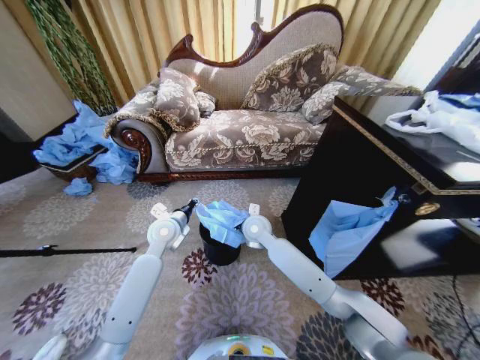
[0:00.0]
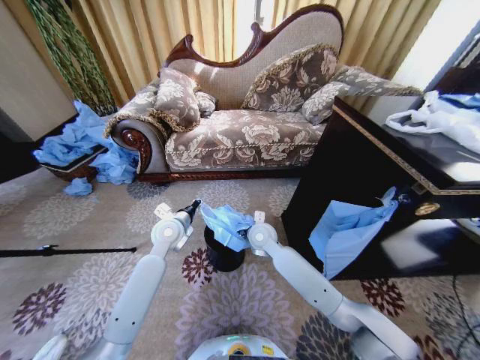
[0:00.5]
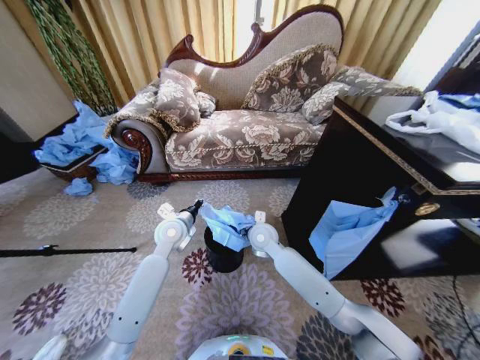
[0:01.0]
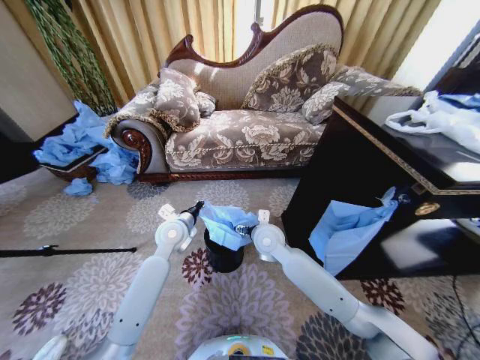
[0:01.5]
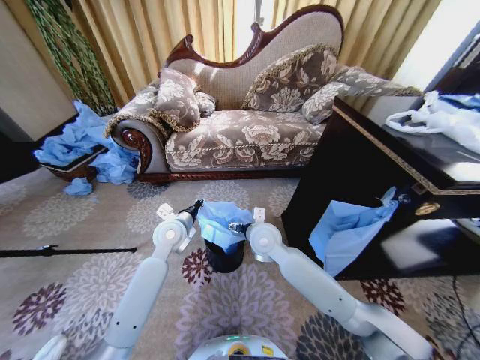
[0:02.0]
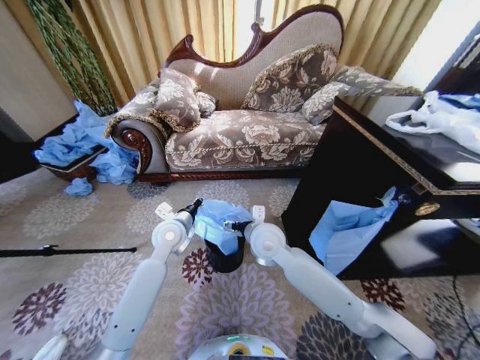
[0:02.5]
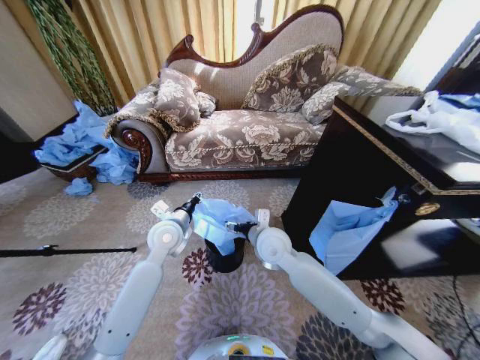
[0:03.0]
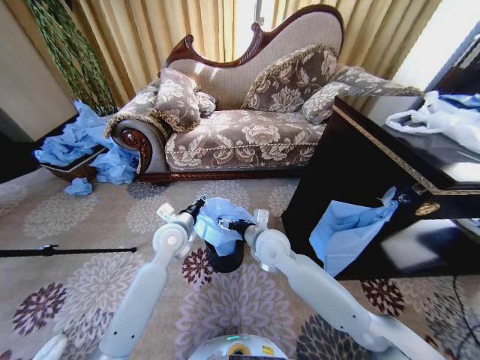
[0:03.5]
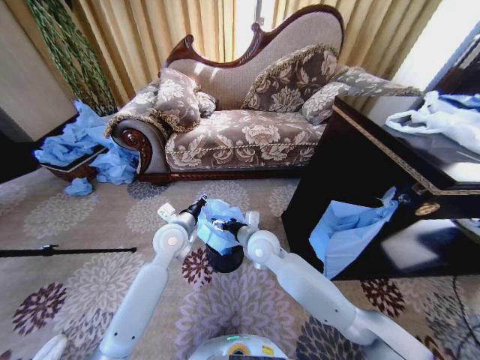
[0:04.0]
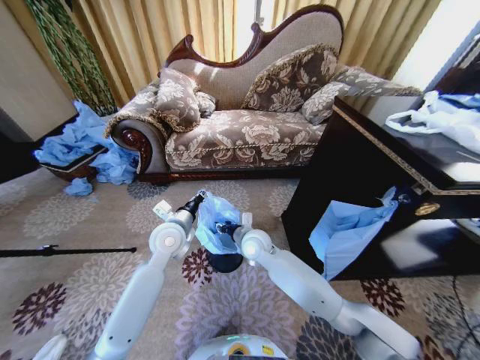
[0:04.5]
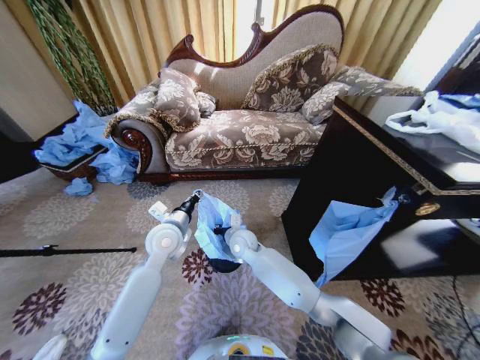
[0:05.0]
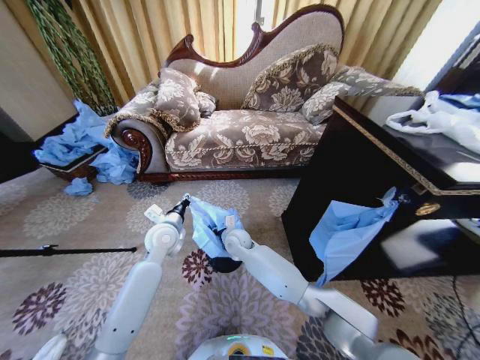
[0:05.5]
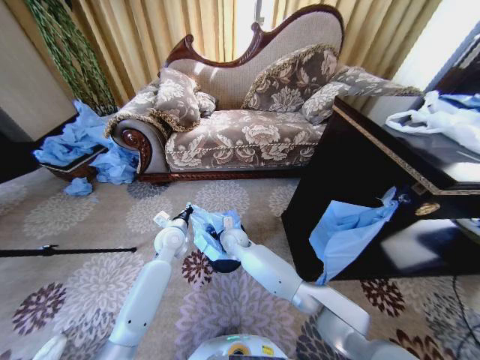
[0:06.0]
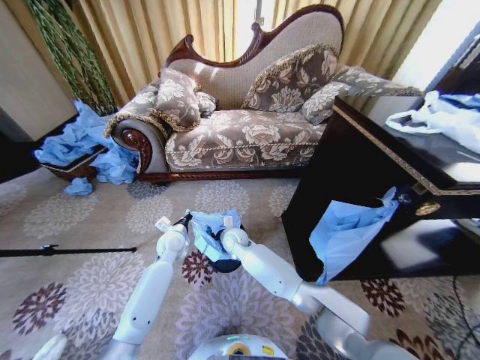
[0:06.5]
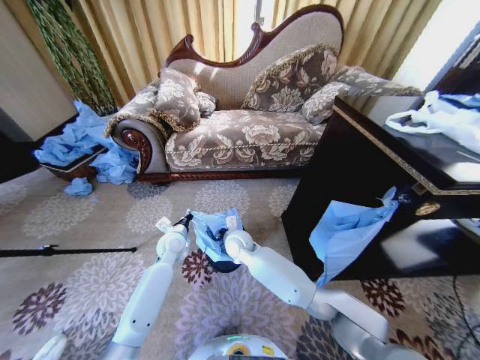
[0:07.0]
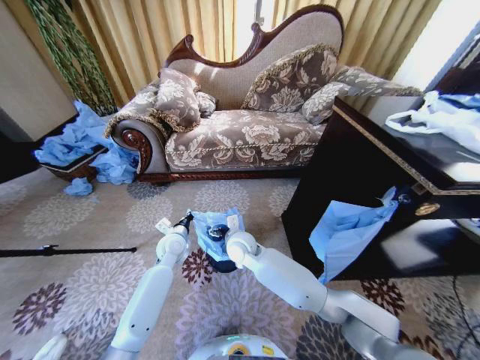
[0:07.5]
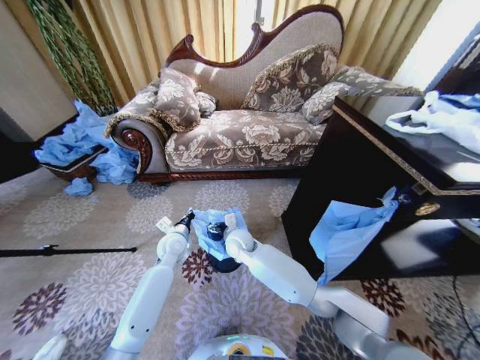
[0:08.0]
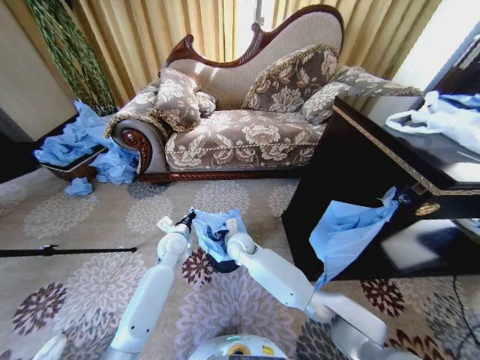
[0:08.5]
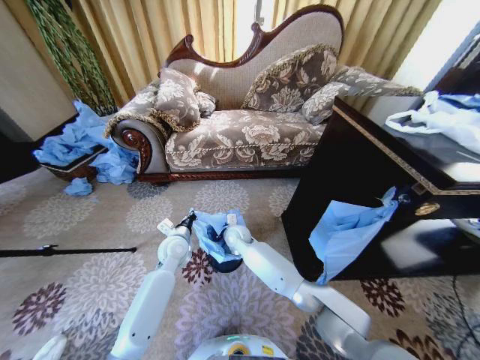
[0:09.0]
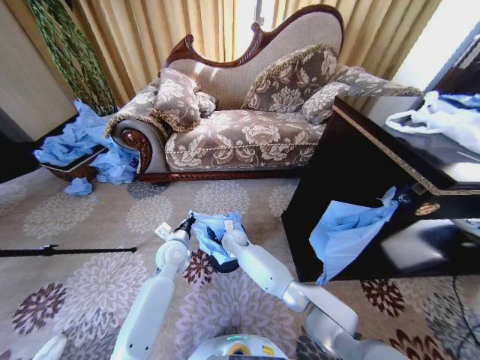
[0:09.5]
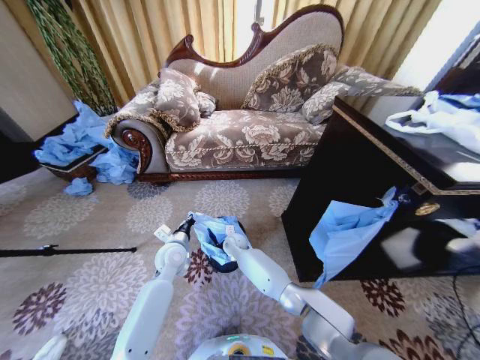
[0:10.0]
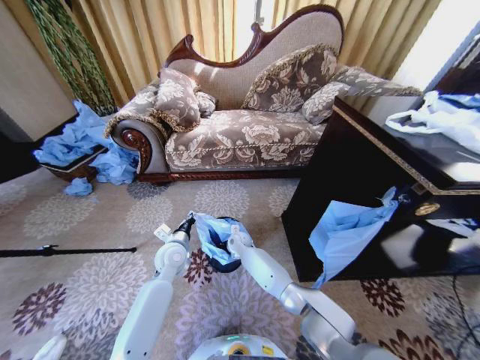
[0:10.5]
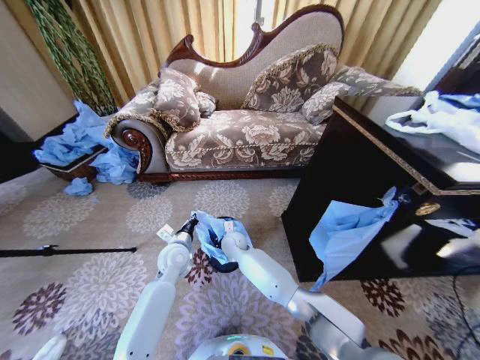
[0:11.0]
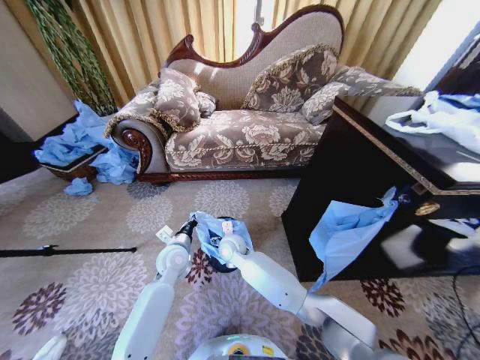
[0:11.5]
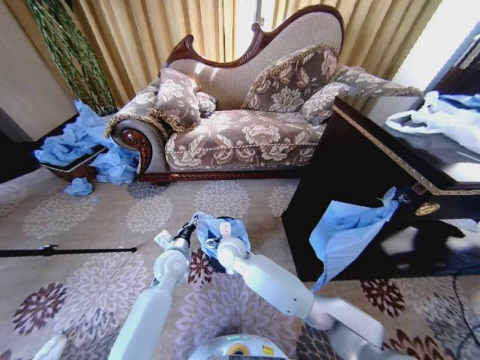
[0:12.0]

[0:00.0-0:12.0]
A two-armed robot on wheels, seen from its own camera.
Task of the whole recording: Place a garbage bag over the trash bin.
0:00.0 to 0:02.0: The right gripper travels backward by some 5 cm, and opens.
0:04.0 to 0:06.0: The left gripper heads downward, covering roughly 5 cm, while the right gripper is displaced downward, to the left and forward by roughly 15 cm, and closes.
0:06.0 to 0:08.0: The right gripper opens up.
0:08.0 to 0:10.0: The right gripper is displaced downward and forward by roughly 10 cm, and closes up.
0:10.0 to 0:12.0: The left gripper opens; the right gripper is displaced upward and backward by approximately 15 cm, and opens up.

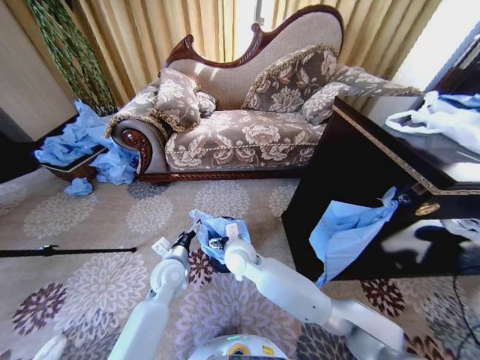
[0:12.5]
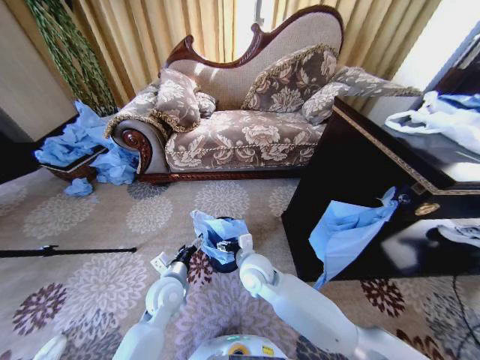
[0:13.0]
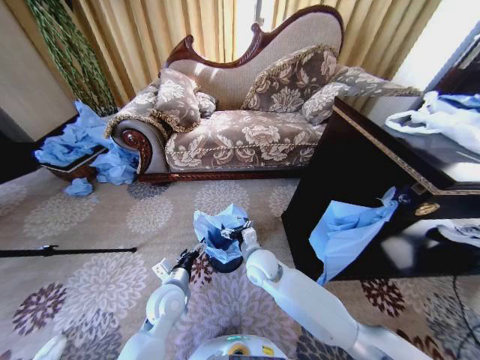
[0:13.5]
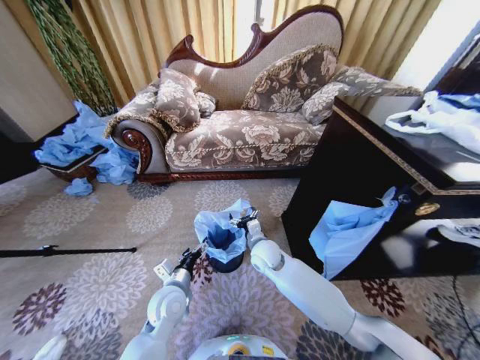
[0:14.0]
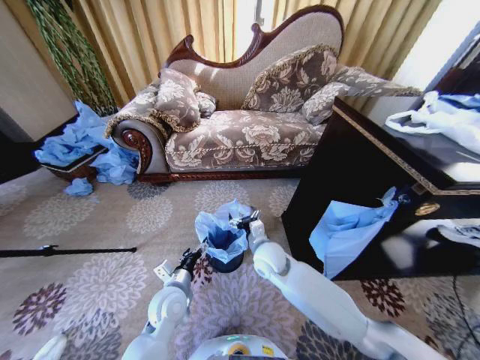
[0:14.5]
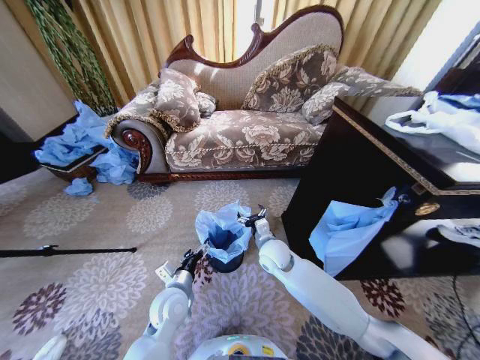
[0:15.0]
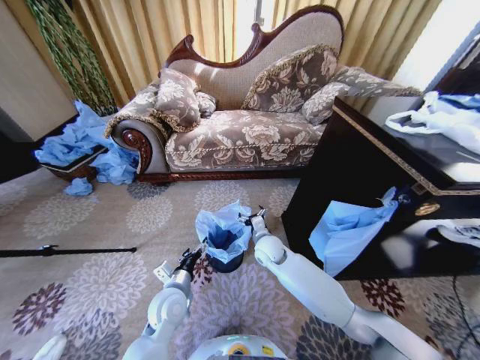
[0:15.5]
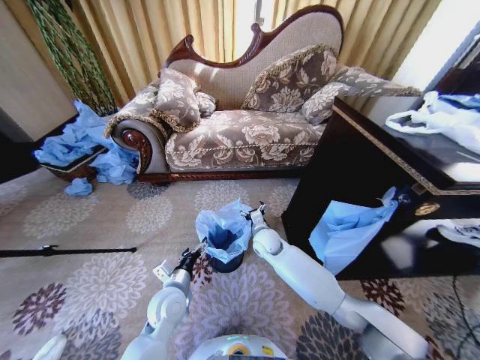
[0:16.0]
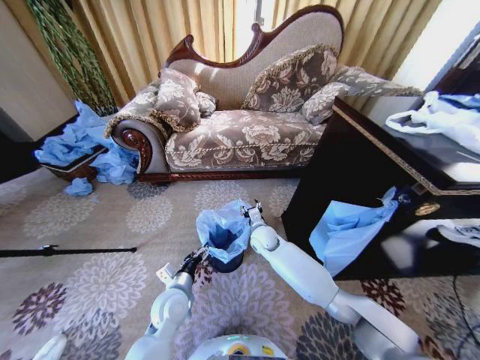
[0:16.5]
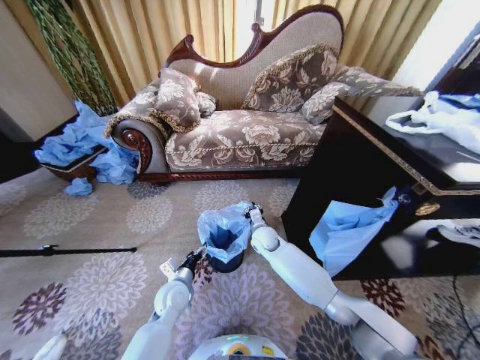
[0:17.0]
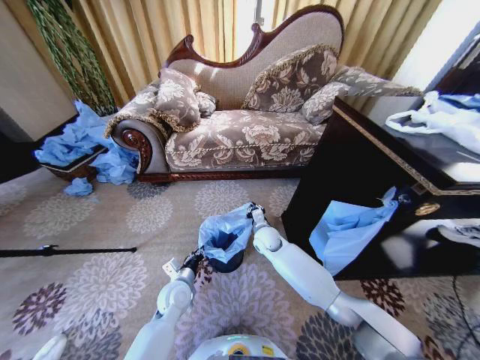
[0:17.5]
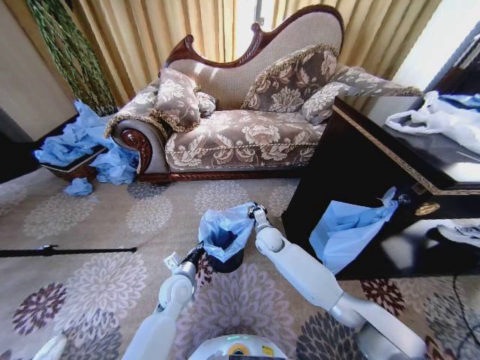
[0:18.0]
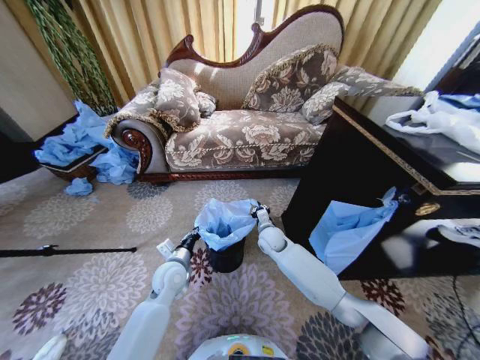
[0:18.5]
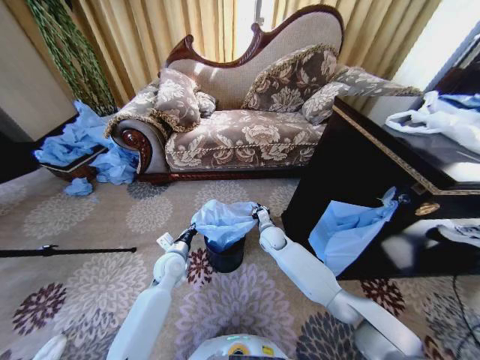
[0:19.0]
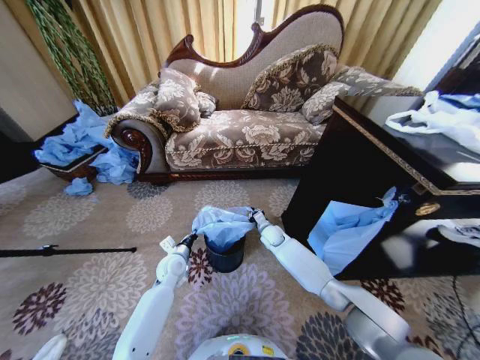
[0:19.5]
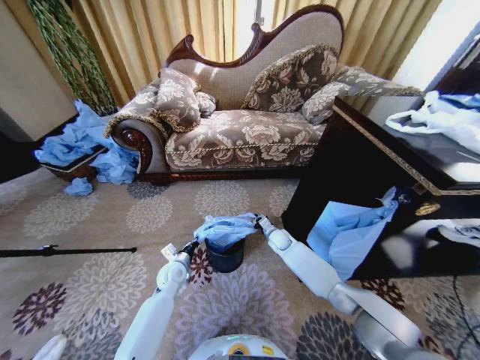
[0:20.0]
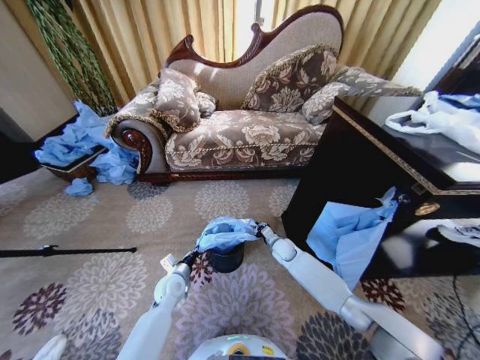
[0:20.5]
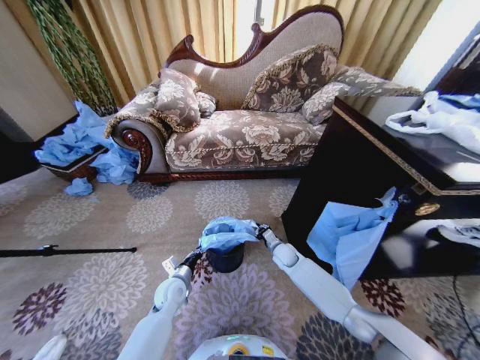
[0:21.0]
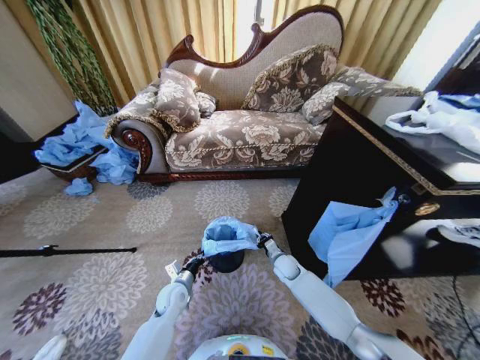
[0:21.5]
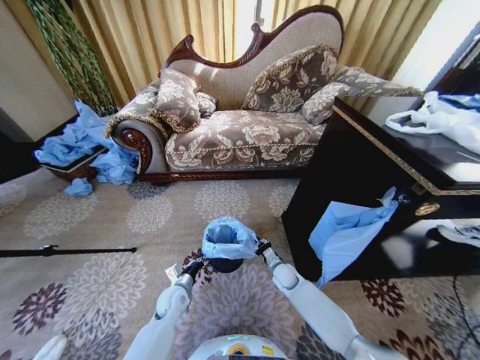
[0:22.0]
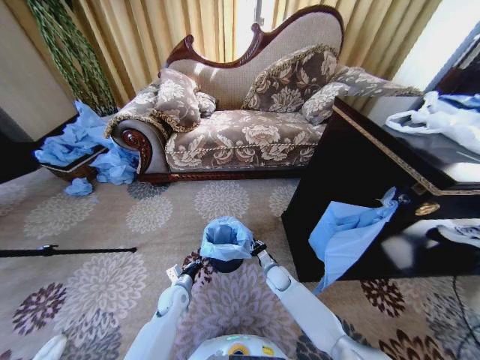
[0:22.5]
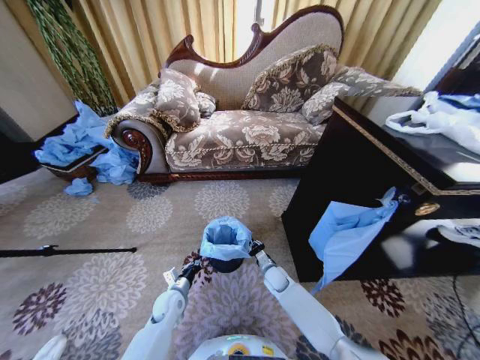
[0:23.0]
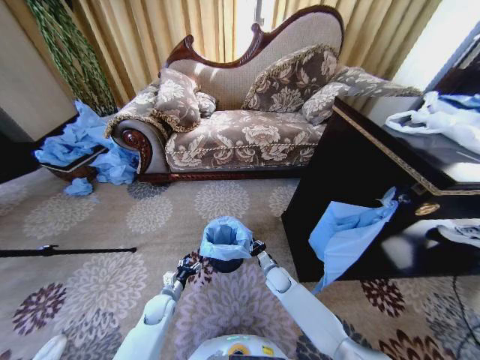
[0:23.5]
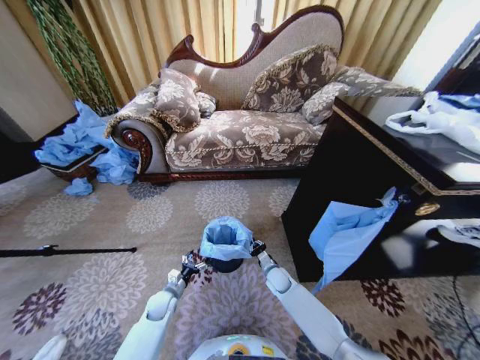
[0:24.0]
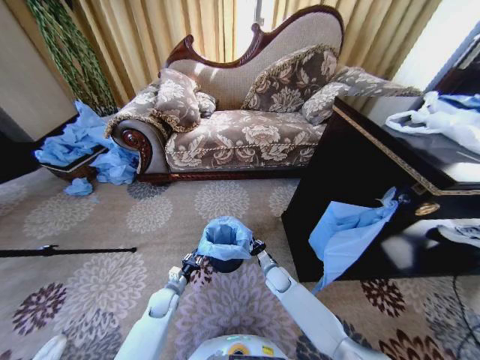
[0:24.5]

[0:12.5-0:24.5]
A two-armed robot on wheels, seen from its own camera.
Task of the whole recording: Place a garbage bag over the trash bin.
0:12.5 to 0:14.5: The left gripper is displaced backward by roughly 5 cm. The right gripper goes about 10 cm to the right.
0:14.5 to 0:16.5: The right gripper moves forward, roughly 10 cm, and closes up.
0:16.5 to 0:18.5: The right gripper closes up, while the left gripper moves forward, roughly 5 cm, and closes.
0:18.5 to 0:20.5: The left gripper shifts some 10 cm downward. Meanwhile the right gripper shifts roughly 10 cm downward and to the right.
0:20.5 to 0:22.5: The left gripper moves downward, about 5 cm; the right gripper is displaced backward and downward by roughly 10 cm.
0:22.5 to 0:24.5: The left gripper opens up.

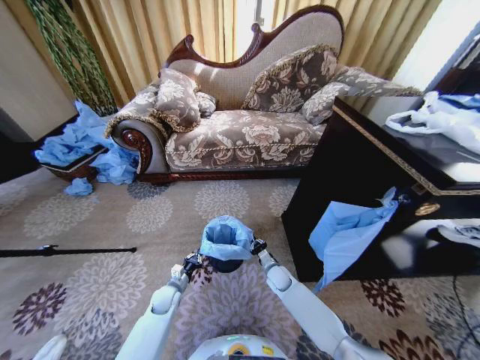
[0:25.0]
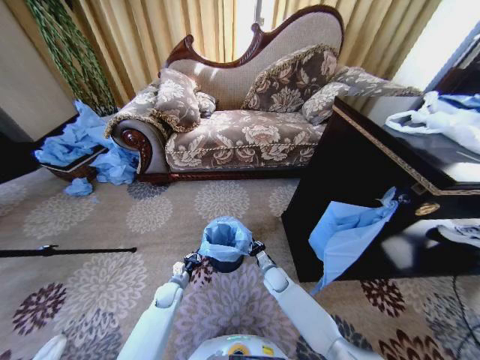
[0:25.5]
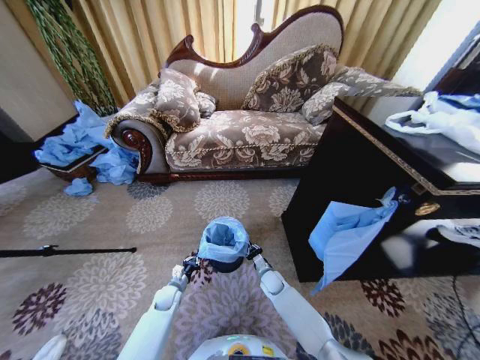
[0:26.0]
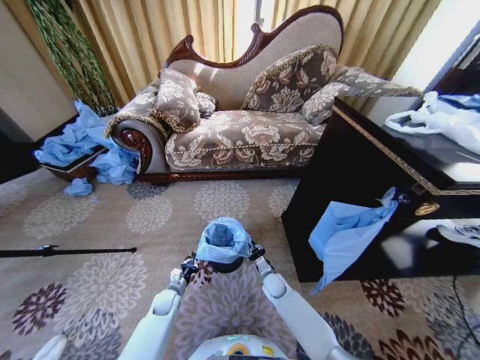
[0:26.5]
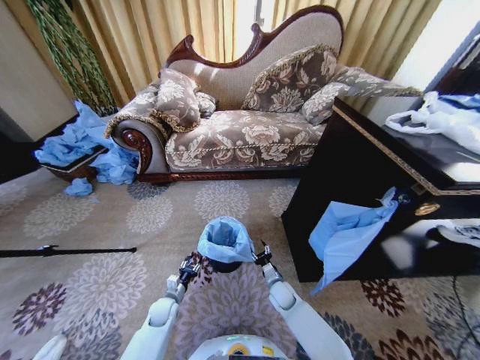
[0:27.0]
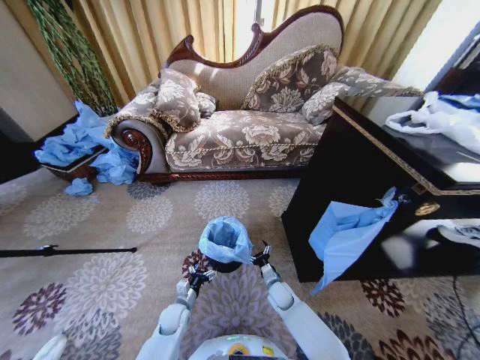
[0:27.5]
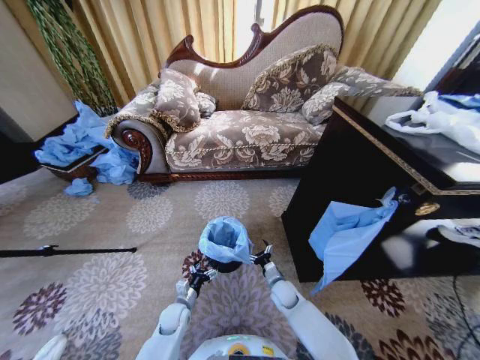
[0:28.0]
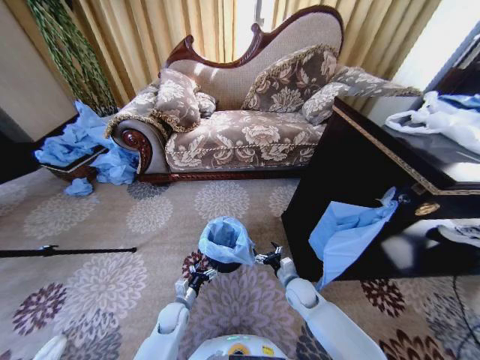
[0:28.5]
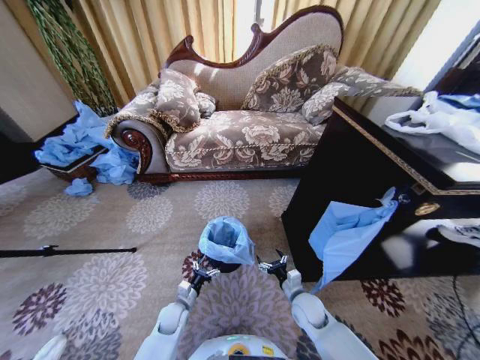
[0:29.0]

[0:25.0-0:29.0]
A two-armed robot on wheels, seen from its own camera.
Task of the whole recording: Place a garbage bag over the trash bin.
0:25.0 to 0:27.0: The right gripper shifts roughly 5 cm backward, and opens up; the left gripper opens its fingers.
0:27.0 to 0:29.0: The left gripper opens. Meanwhile the right gripper heads upward, backward and to the right, covering some 10 cm, and opens its fingers.
